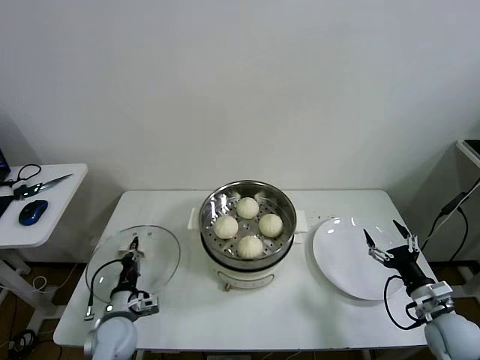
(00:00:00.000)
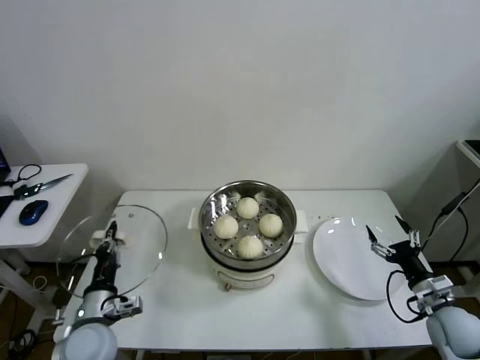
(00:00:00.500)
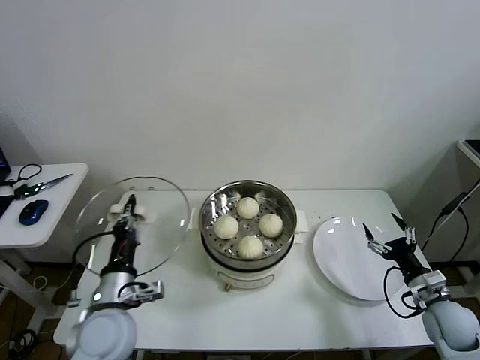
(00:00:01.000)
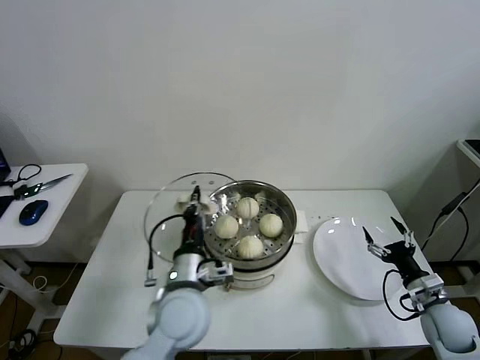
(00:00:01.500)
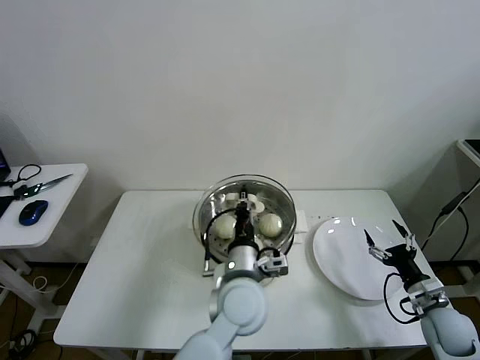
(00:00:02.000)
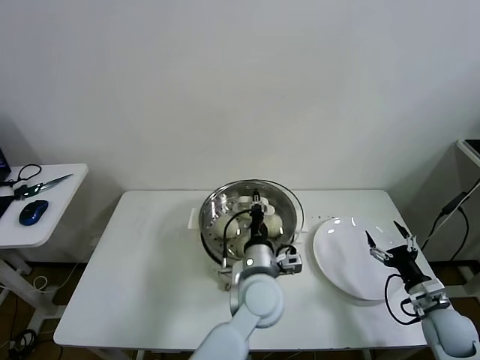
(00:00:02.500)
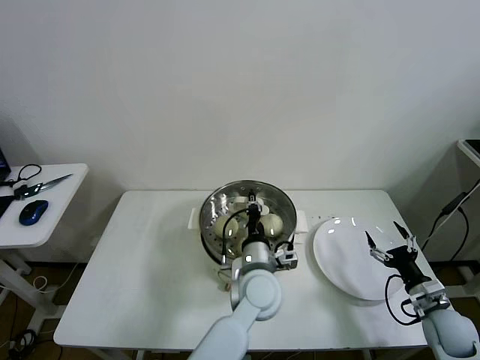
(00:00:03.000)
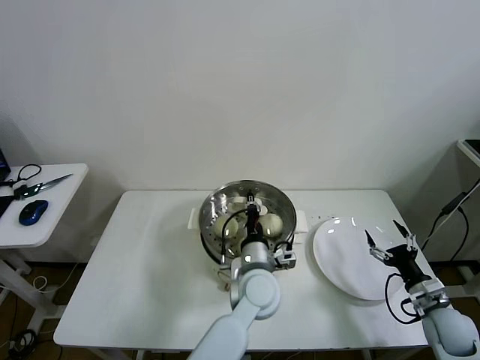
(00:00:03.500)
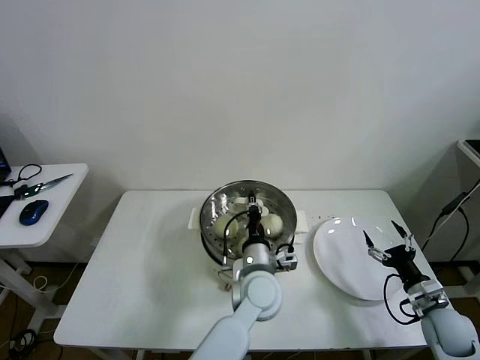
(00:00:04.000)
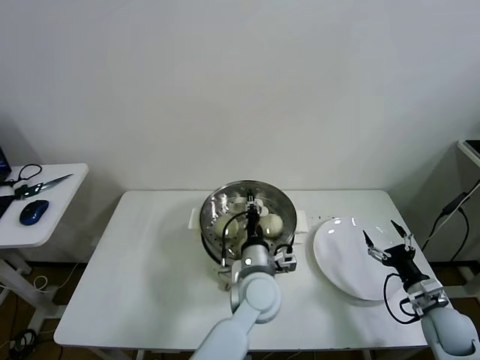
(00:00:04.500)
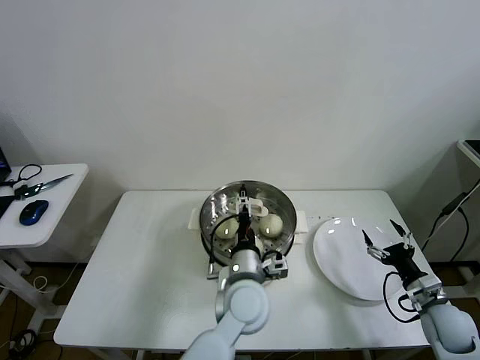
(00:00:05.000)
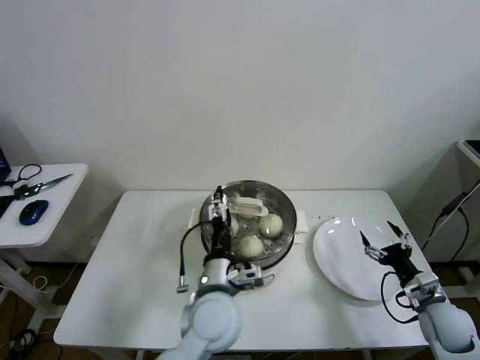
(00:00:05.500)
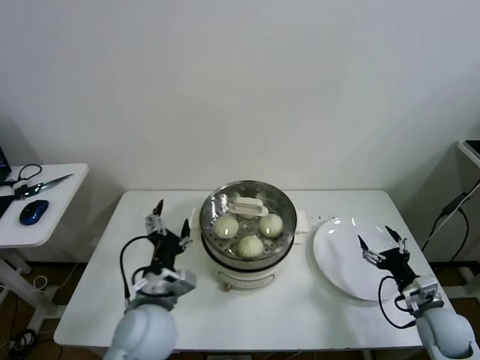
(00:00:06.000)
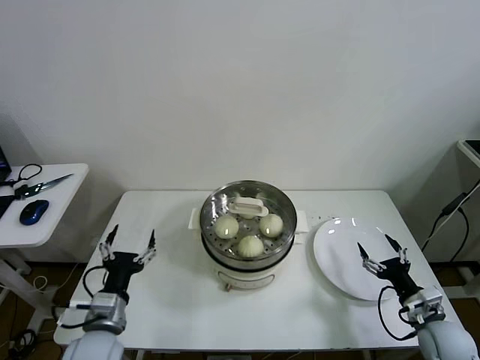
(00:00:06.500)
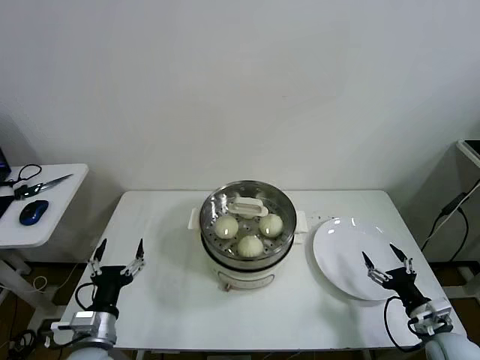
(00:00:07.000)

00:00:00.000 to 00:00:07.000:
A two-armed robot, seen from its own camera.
Task of the whole recording: take steamed baozi put them in steamer then cover it.
Step, 00:00:00.000 to 00:00:04.500: Place the pot lid on the steamer with left gripper.
00:00:00.000 to 00:00:02.000: The left gripper shifts about 35 cm to the right and upward.
00:00:02.000 to 00:00:03.500: The left gripper shifts by roughly 10 cm.
00:00:03.500 to 00:00:05.000: The left gripper opens.
00:00:05.000 to 00:00:07.000: The right gripper is displaced backward by approximately 5 cm. Meanwhile the left gripper heads to the left, covering about 30 cm.
